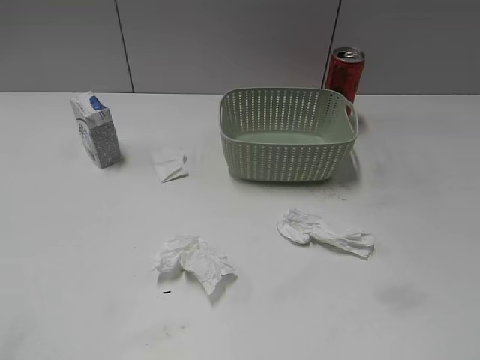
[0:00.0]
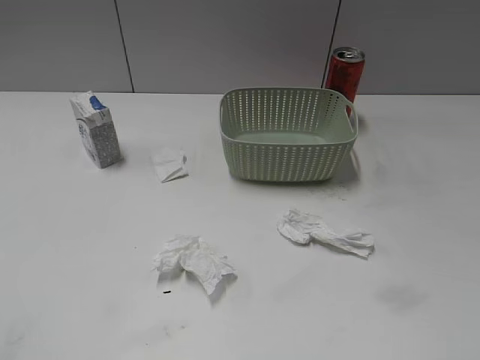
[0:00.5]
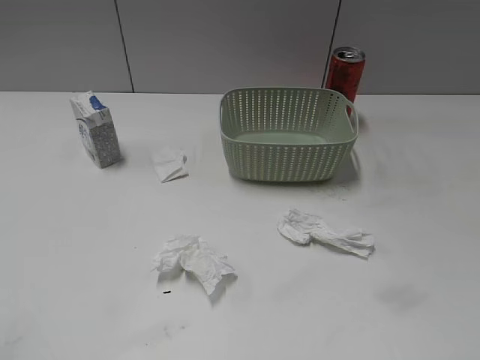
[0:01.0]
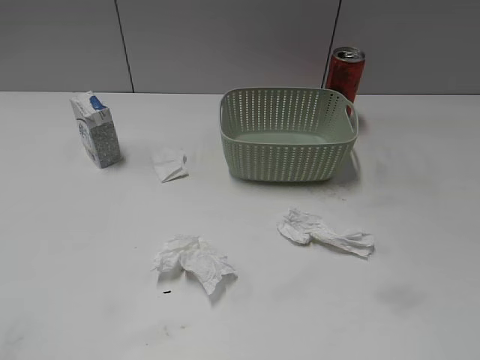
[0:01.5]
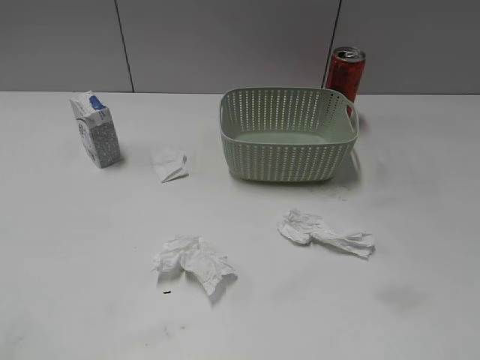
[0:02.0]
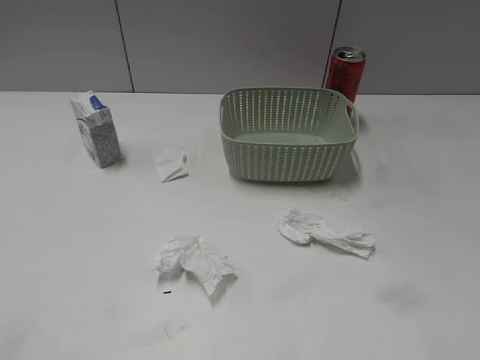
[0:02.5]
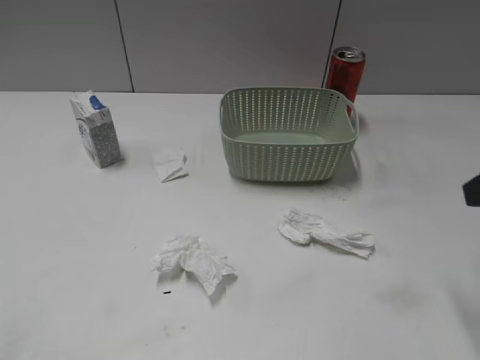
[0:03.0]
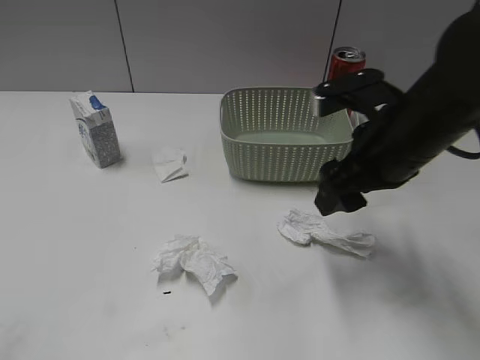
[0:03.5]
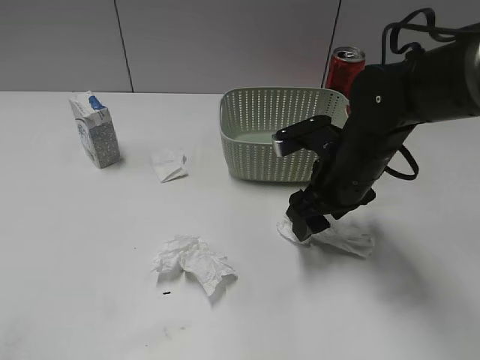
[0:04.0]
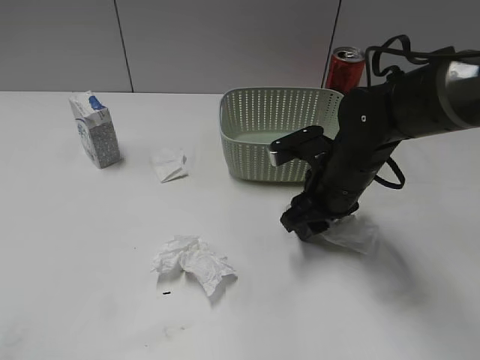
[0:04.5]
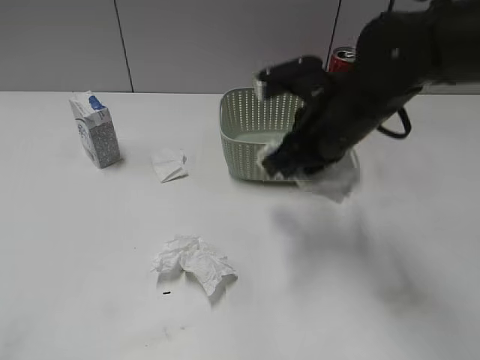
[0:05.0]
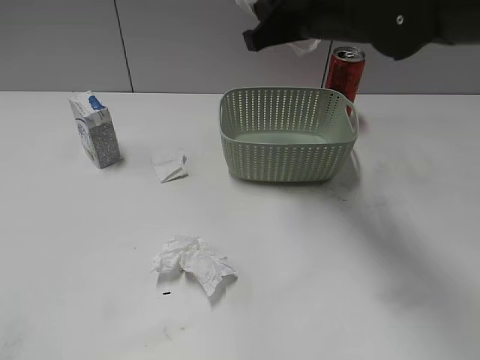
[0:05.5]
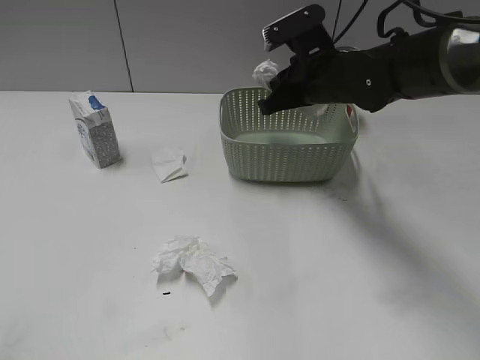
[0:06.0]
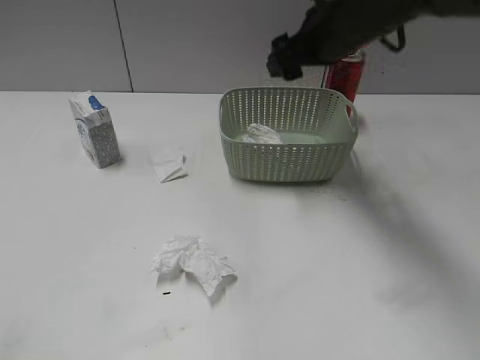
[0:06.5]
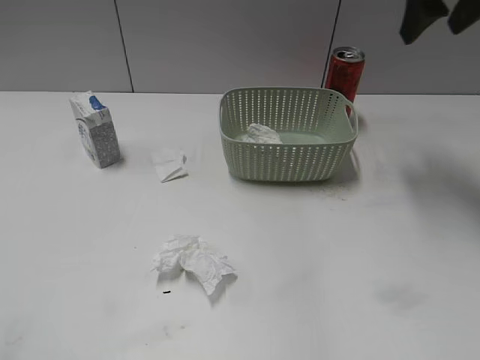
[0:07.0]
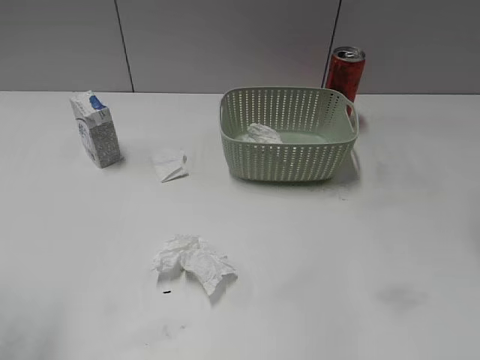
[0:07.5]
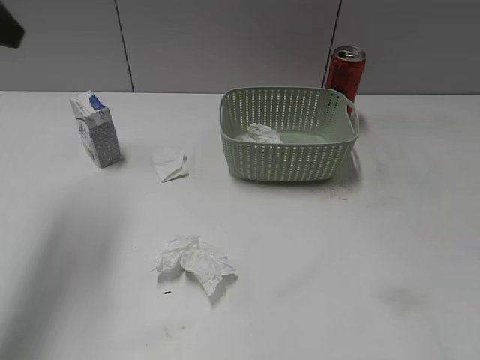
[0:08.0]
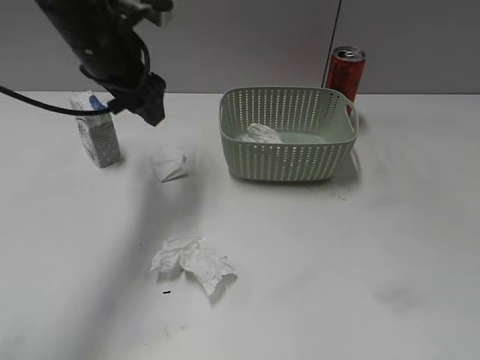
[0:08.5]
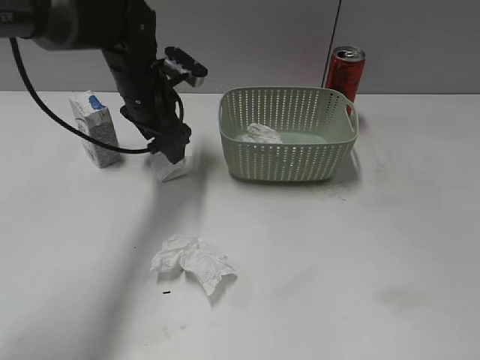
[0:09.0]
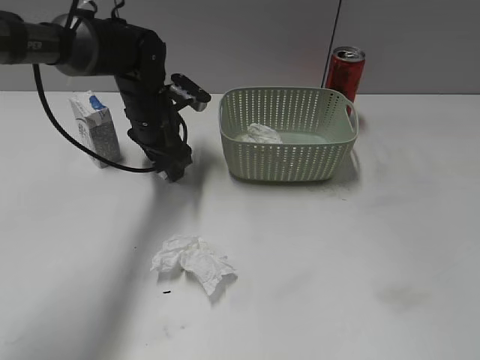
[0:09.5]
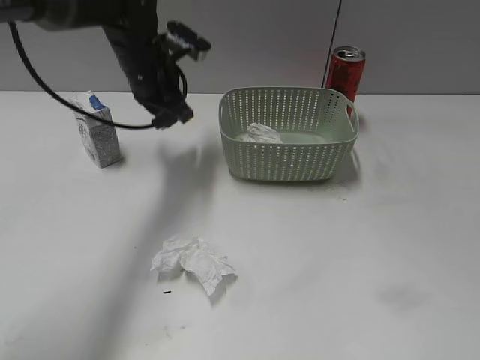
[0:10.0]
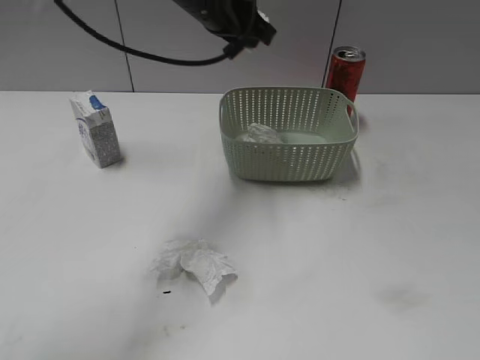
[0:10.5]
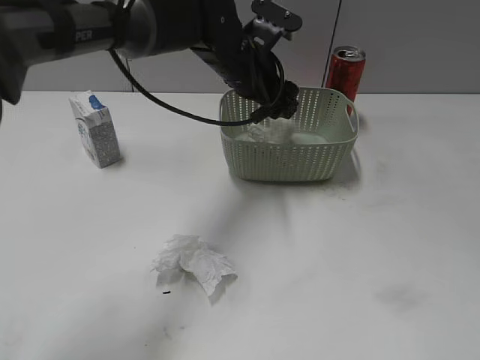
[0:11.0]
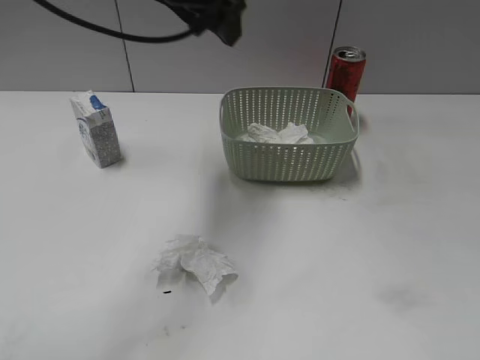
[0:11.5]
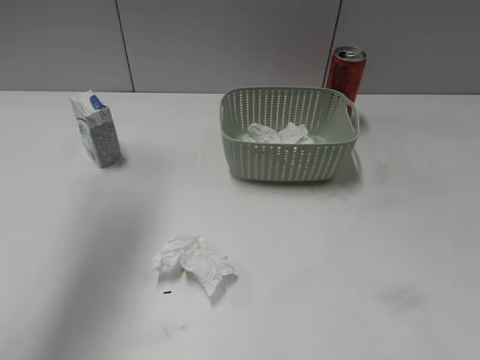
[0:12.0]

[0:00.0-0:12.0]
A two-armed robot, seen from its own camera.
Step, 0:02.0 to 0:04.5: Grasp the waste paper with right gripper.
Step, 0:05.0 to 0:06.0: Place the waste paper in the basket with right gripper.
Step, 0:06.5 to 0:09.5: Grasp the waste paper with left gripper.
Step, 0:10.0 to 0:11.0: Place the waste paper in the basket with left gripper.
0:02.0 to 0:04.0: The right gripper heads forward, to the left and downward, covering approximately 35 cm.
0:04.0 to 0:06.0: The right gripper shifts some 10 cm forward, travels upward and back again, some 15 cm each way, and closes.
0:06.0 to 0:08.0: The left gripper moves forward, about 30 cm. Meanwhile the right gripper goes some 35 cm backward, to the right and upward, and opens.
0:08.0 to 0:10.0: The left gripper goes about 25 cm to the right, downward and forward, and closes up. Meanwhile the right gripper moves backward, some 15 cm.
0:10.0 to 0:12.0: The left gripper goes some 30 cm upward, to the left and backward, and opens; the right gripper moves forward, some 10 cm.

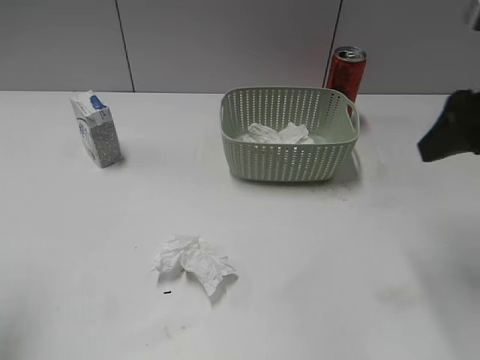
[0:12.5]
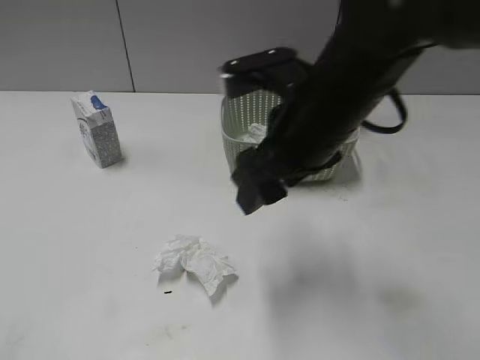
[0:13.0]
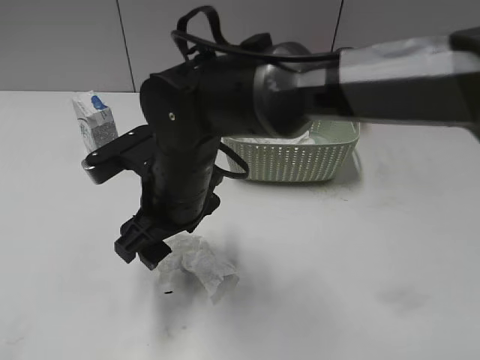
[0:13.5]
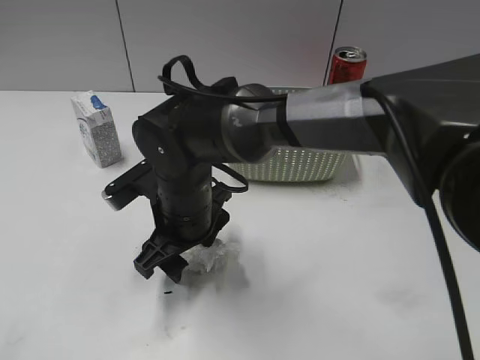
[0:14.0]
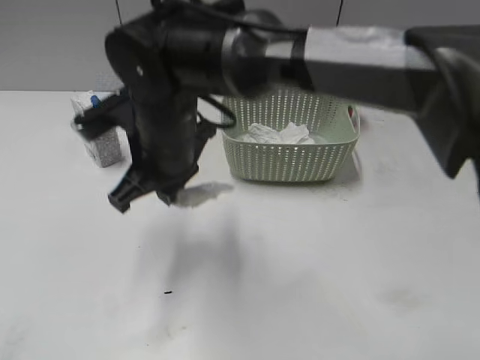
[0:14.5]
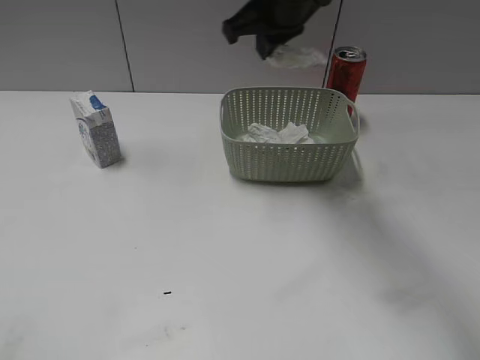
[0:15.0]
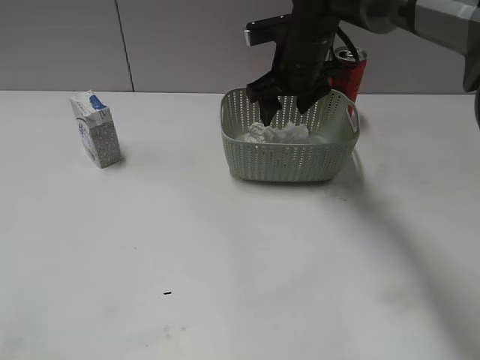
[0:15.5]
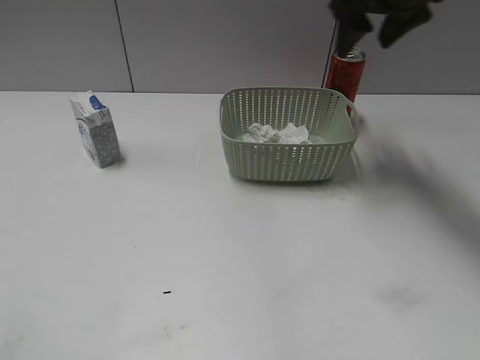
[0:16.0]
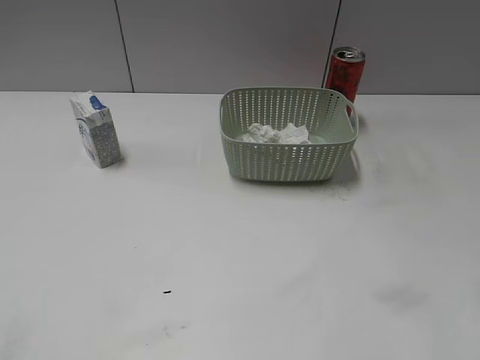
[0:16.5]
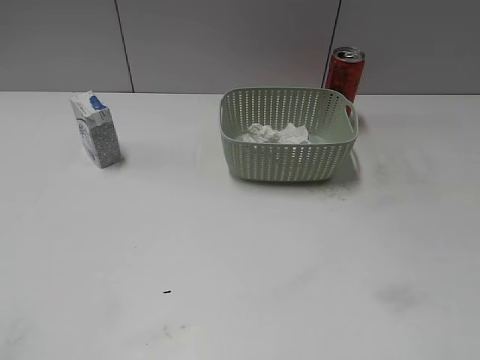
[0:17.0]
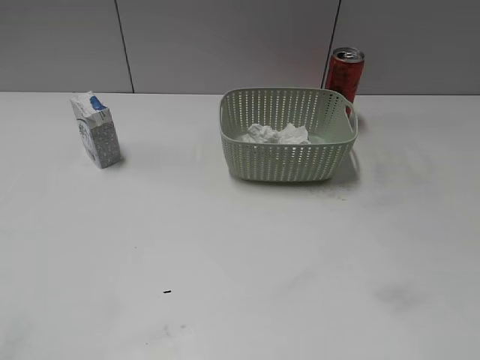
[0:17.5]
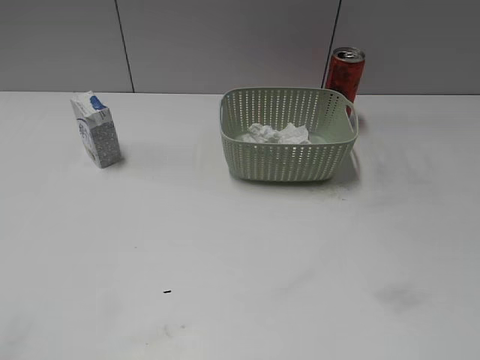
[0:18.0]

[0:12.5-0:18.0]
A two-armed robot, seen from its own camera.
Step, 0:12.5 to 0:14.0: Grasp the waste paper with right gripper.
Step, 0:14.5 to 0:15.5: Place the waste paper in the basket with right gripper.
0:12.5 to 0:14.5: The left gripper moves backward and downward, approximately 20 cm; the right gripper heads to the left, covering roughly 30 cm, and closes its fingers.
0:14.5 to 0:16.0: The right gripper is displaced to the right, forward and upward by some 30 cm, and opens its fingers.
0:16.0 to 0:18.0: The right gripper travels backward by roughly 40 cm.

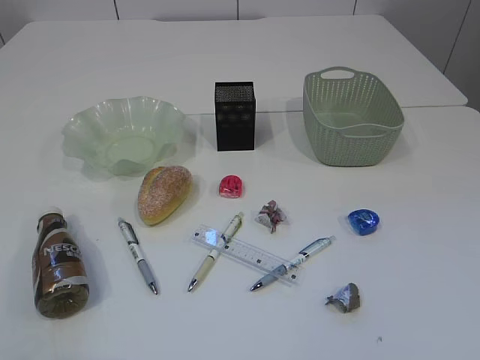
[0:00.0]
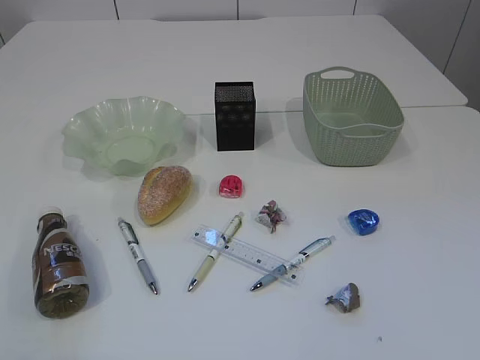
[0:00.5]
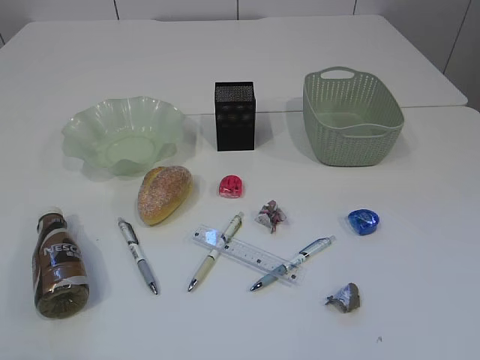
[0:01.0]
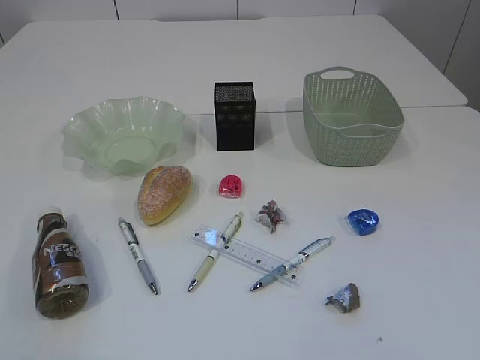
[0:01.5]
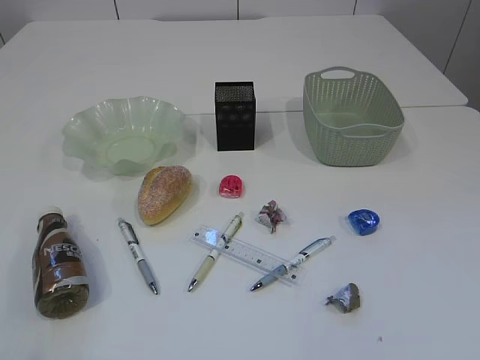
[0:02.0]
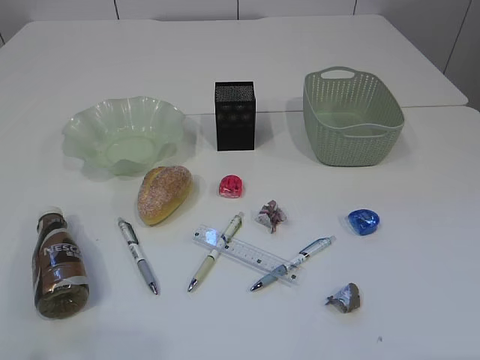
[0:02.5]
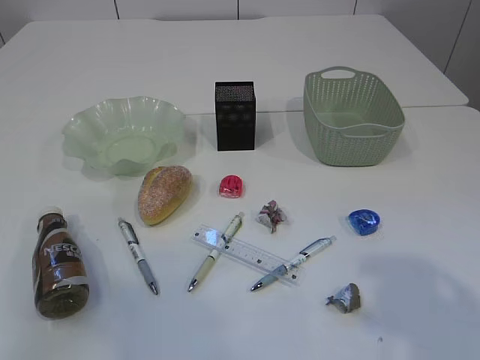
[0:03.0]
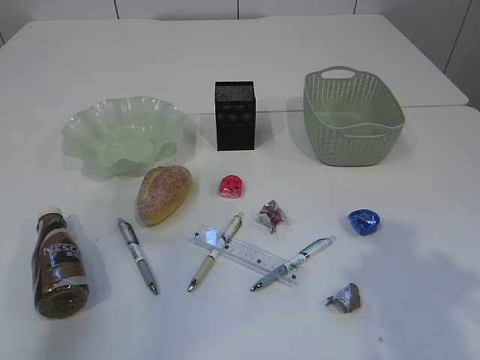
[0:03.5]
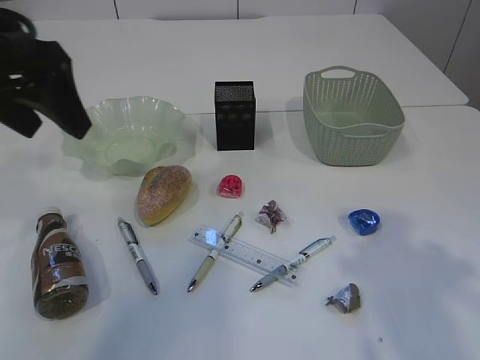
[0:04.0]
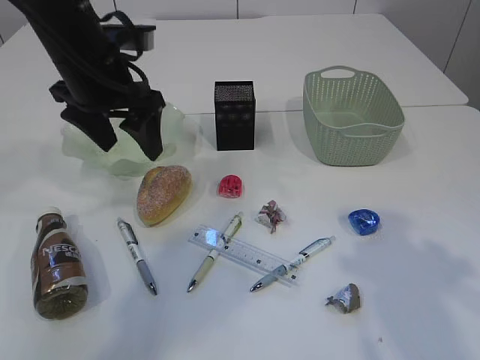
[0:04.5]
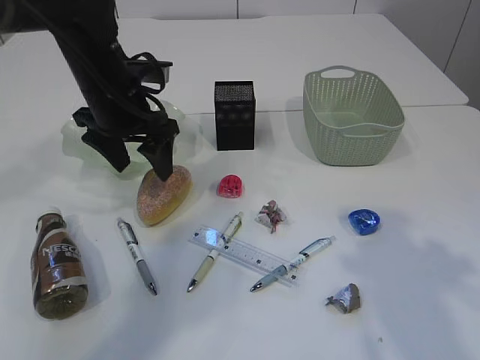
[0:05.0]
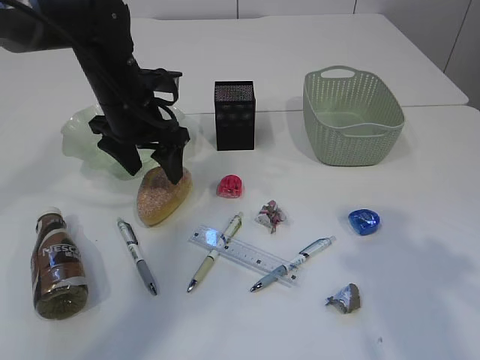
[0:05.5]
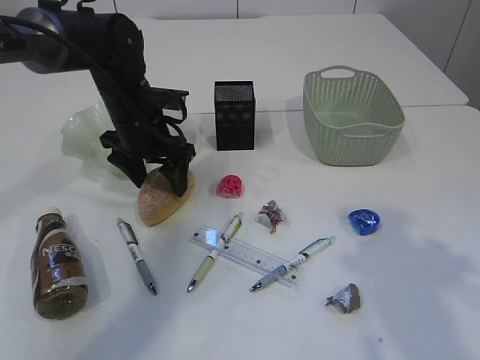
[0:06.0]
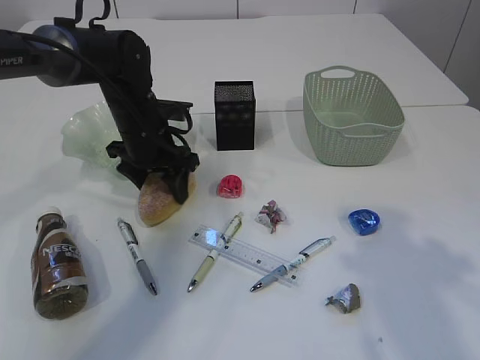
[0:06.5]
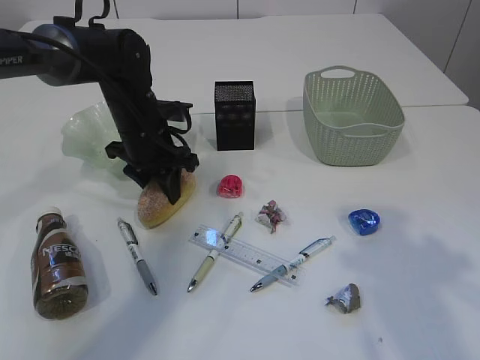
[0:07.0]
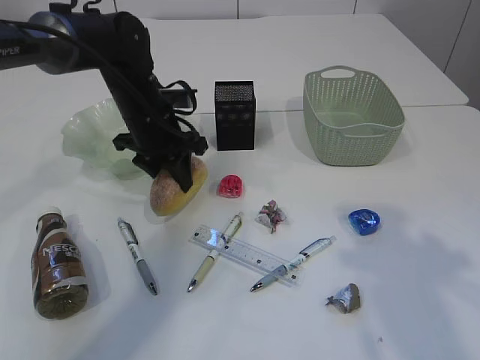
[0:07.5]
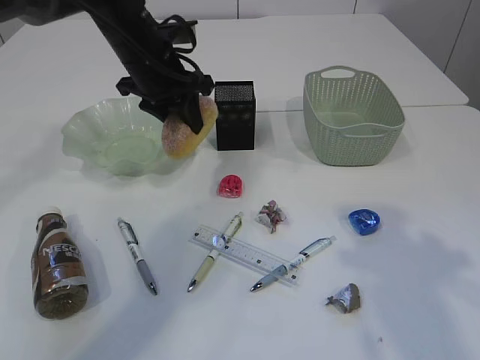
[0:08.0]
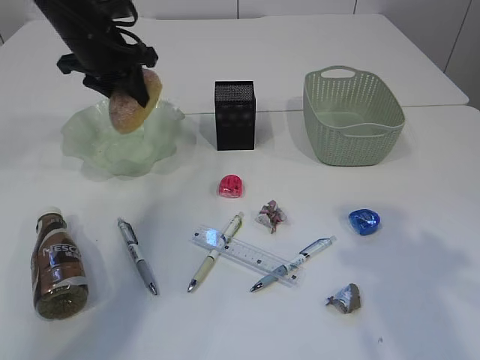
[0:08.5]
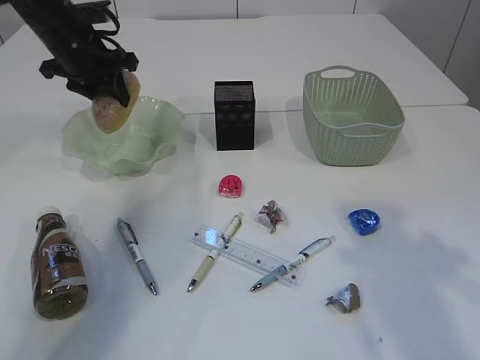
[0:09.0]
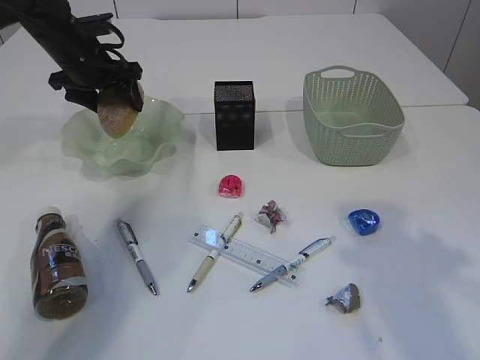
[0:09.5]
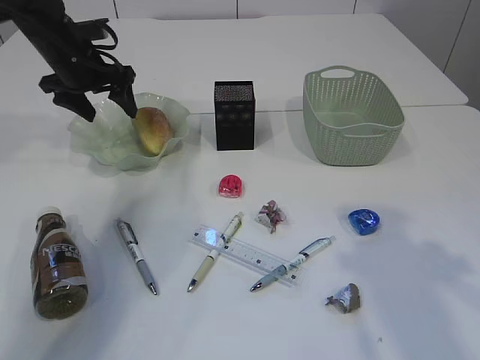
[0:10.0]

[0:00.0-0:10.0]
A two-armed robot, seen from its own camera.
0:02.0 to 0:04.0: The left gripper goes roughly 30 cm forward, and opens its fingers, while the right gripper goes about 20 cm forward.
0:04.0 to 0:06.0: The left gripper goes roughly 25 cm downward, forward and to the right.
0:06.0 to 0:08.0: The left gripper shifts some 5 cm upward, and closes.
0:08.0 to 0:10.0: The left gripper is displaced to the left and forward by roughly 15 cm, and opens its fingers.
